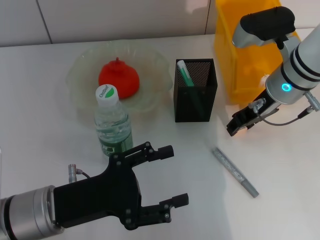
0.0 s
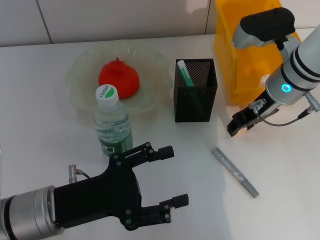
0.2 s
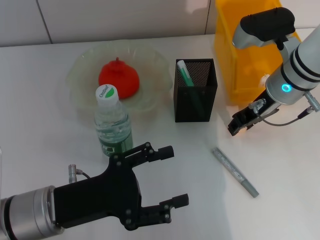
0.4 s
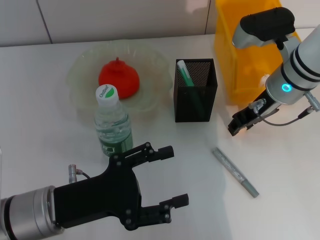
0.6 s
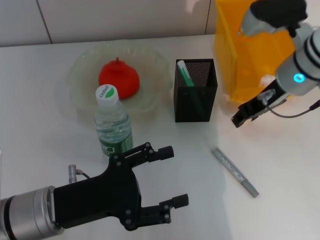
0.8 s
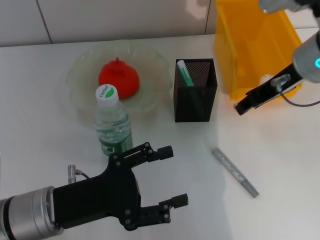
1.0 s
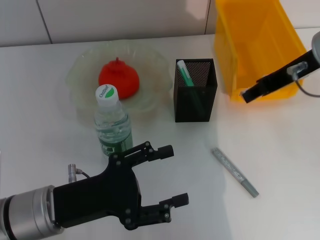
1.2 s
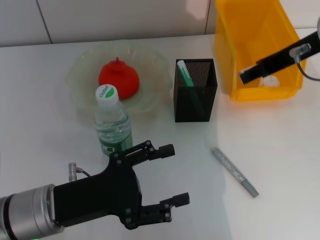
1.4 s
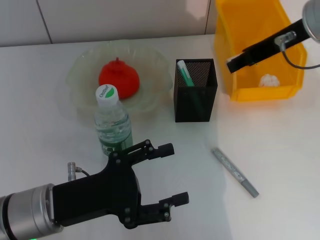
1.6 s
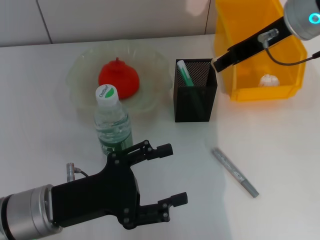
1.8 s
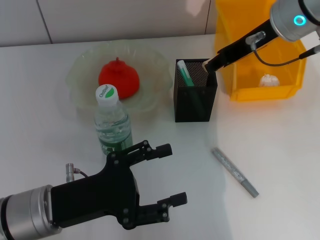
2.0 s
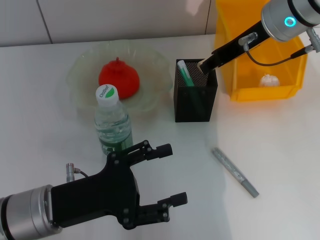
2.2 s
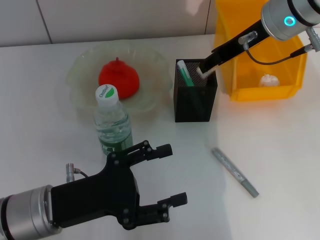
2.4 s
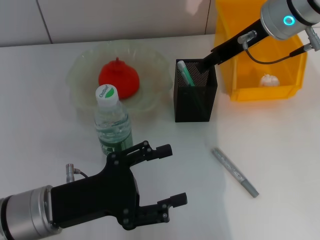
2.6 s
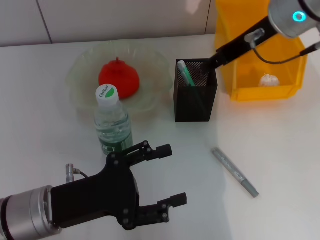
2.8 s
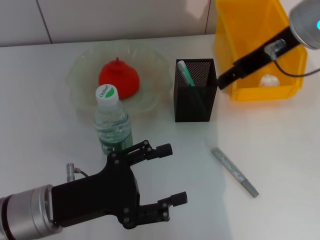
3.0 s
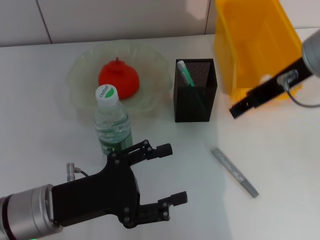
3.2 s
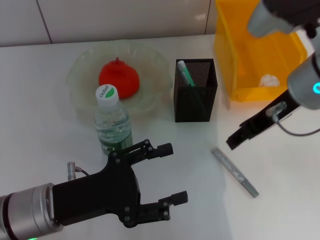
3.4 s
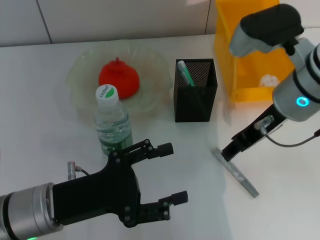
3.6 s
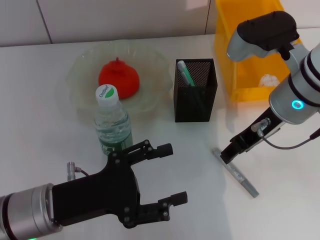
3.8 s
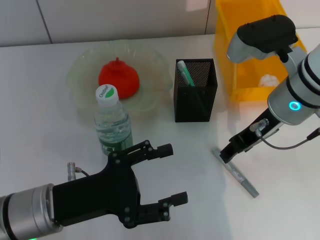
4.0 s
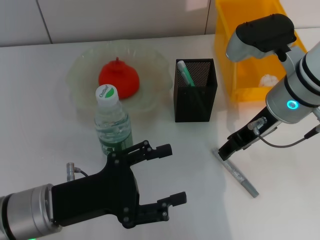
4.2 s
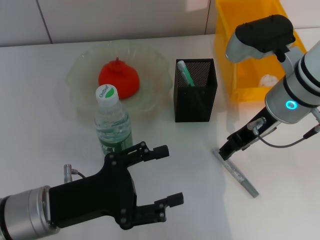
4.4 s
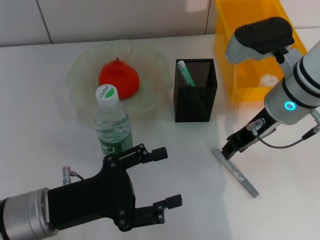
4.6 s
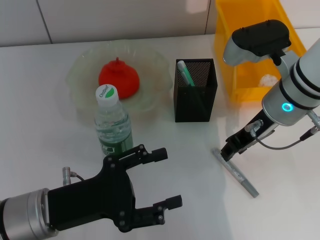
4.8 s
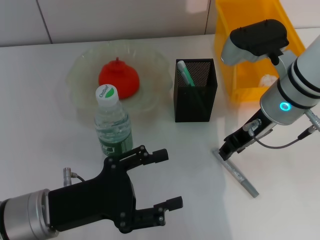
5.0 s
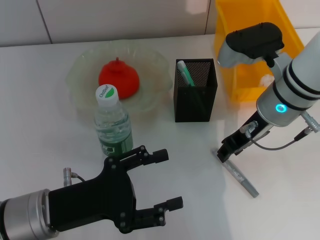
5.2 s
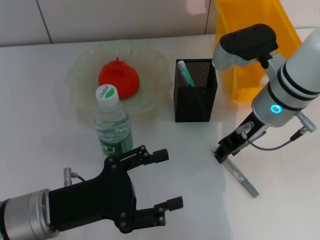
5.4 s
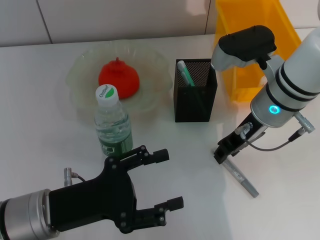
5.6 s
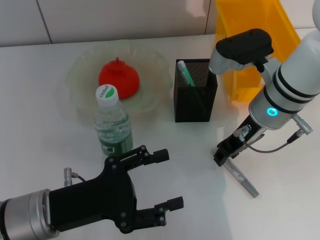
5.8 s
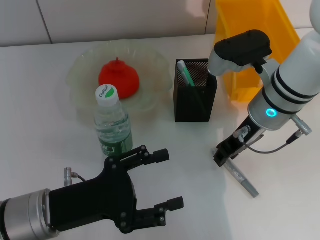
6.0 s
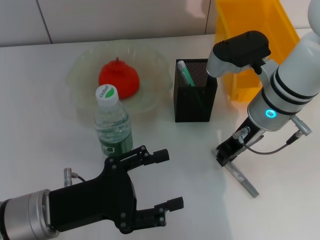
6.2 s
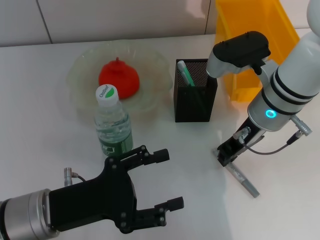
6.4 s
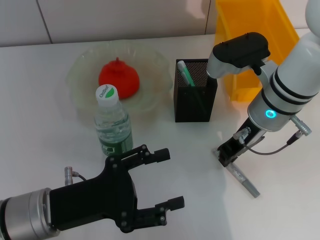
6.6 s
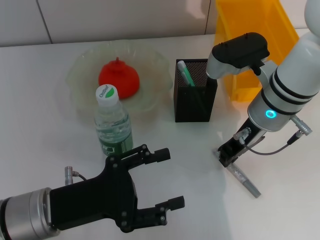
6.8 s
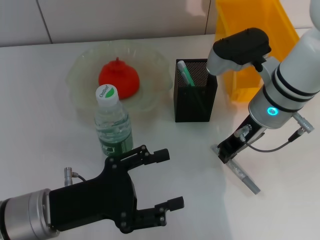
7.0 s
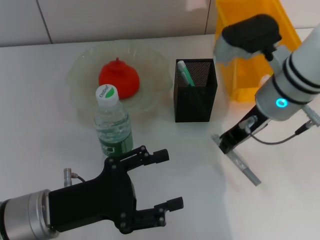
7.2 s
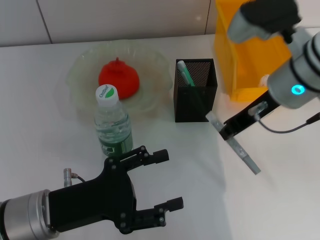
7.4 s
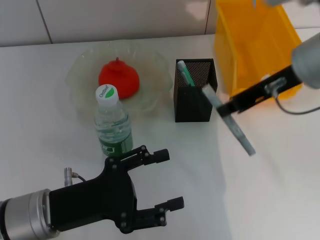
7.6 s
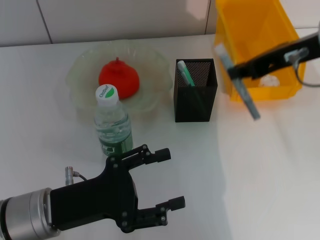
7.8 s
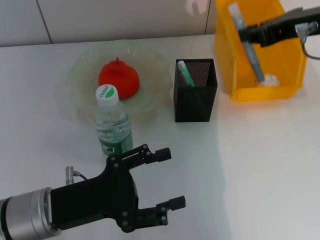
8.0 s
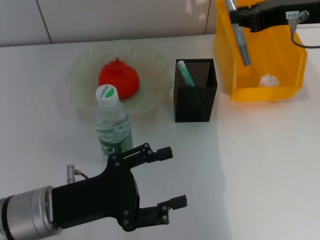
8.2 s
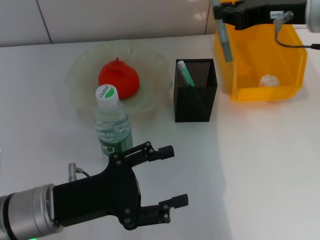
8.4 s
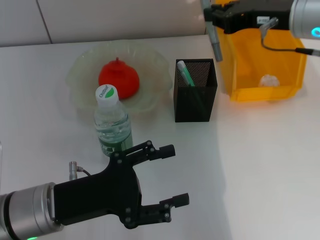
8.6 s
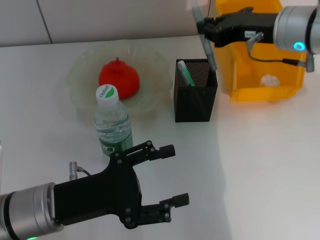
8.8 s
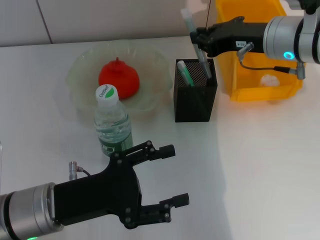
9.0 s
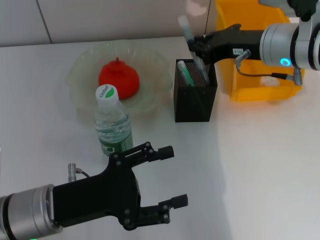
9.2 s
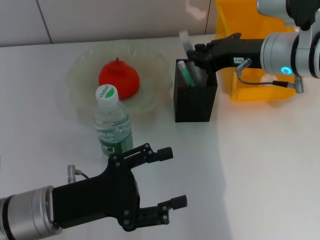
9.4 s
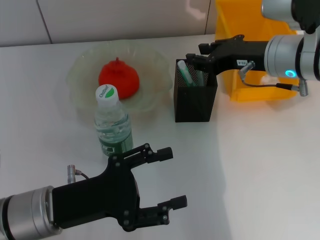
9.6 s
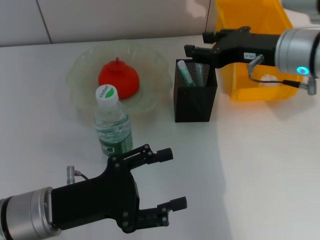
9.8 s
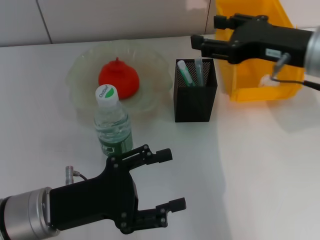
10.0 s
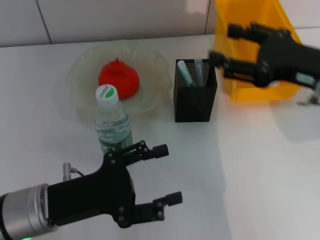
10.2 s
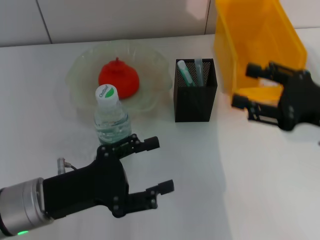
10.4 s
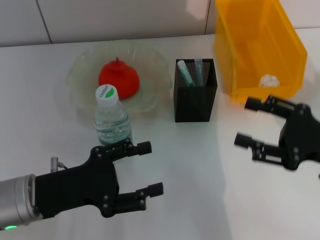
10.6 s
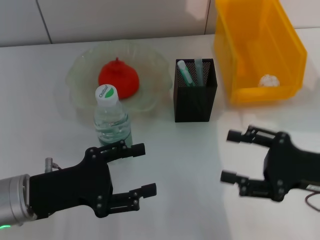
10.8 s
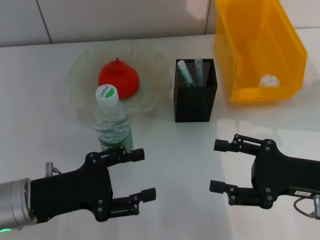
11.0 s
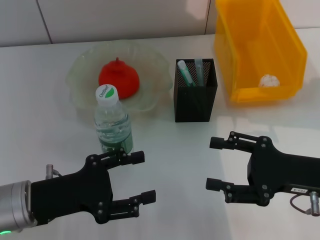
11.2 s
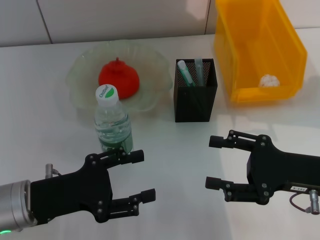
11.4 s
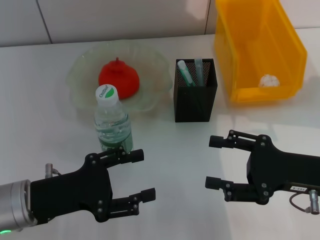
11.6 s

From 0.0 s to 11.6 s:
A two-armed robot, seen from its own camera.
Step, from 0.6 s to 2.6 s: Put the eraser into the pen holder with the right hand.
Step, from 2.8 s to 6.6 s: Grab the gray glue with the right hand.
Step, from 6.8 s to 10.0 s: Place the gray glue into the pen holder with the right hand.
From 0.0 s to 1.4 s: The right gripper goes about 10 cm upward.
From 2.8 s to 4.4 s: The right gripper heads downward, covering approximately 10 cm.
From 4.4 s to 5.8 s: The grippers stay close to where they were, moving slightly.
From 5.8 s to 7.2 s: The right gripper closes its fingers.
From 7.2 s to 8.8 s: The right gripper travels upward and back again, some 10 cm each way.
From 8.8 s to 10.2 s: The right gripper moves backward, approximately 10 cm, and opens its fingers.
From 10.2 s to 11.6 s: The right gripper moves downward and backward, approximately 10 cm.

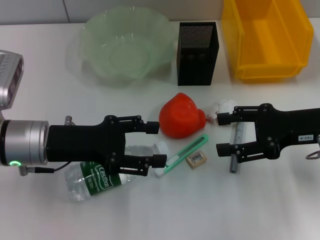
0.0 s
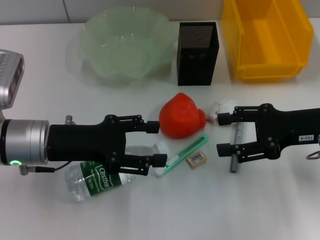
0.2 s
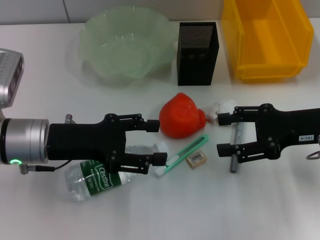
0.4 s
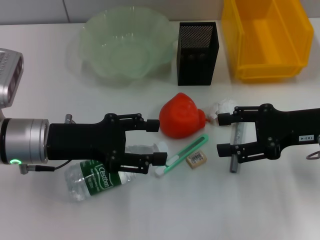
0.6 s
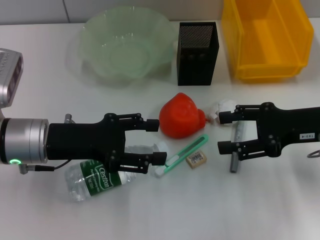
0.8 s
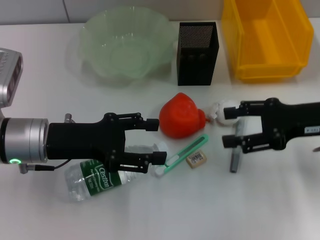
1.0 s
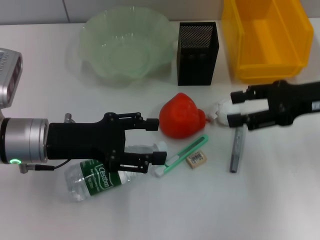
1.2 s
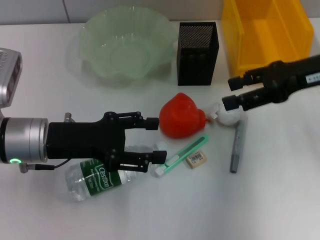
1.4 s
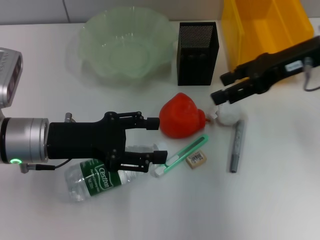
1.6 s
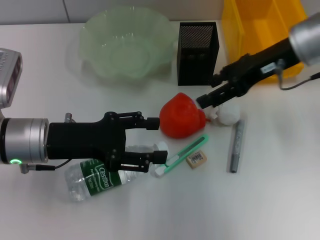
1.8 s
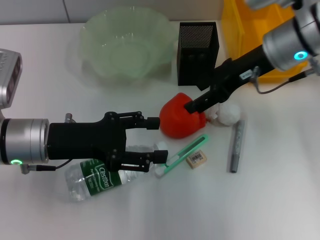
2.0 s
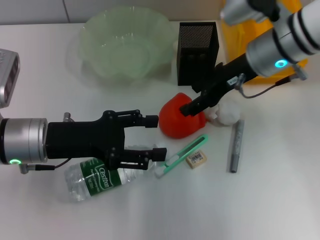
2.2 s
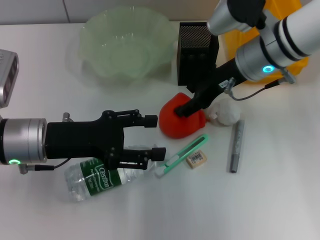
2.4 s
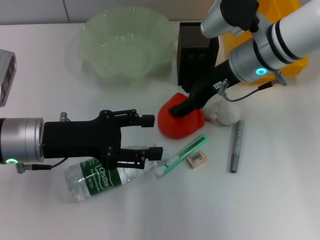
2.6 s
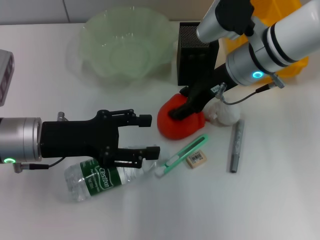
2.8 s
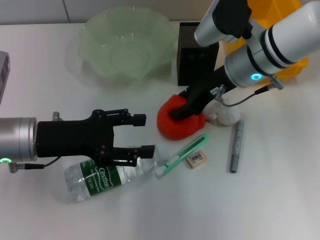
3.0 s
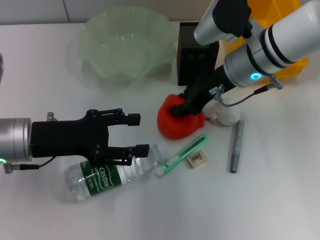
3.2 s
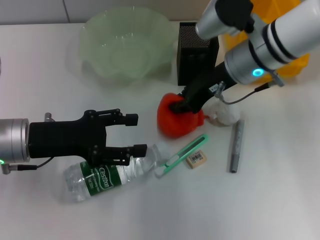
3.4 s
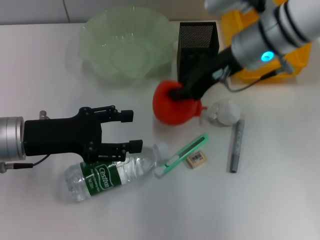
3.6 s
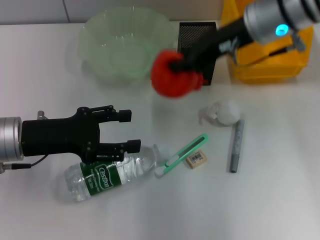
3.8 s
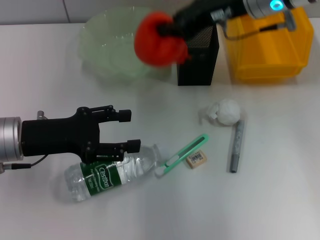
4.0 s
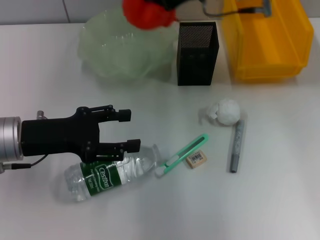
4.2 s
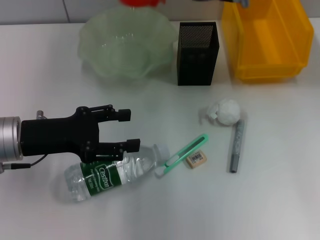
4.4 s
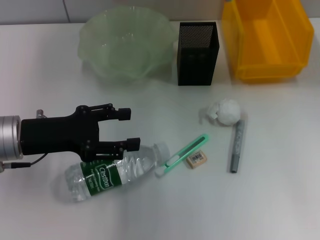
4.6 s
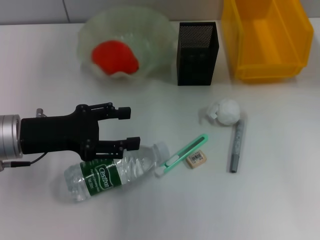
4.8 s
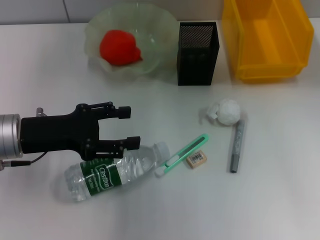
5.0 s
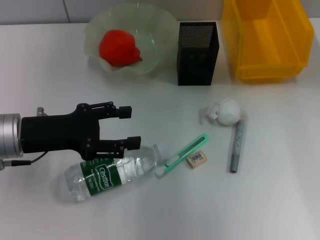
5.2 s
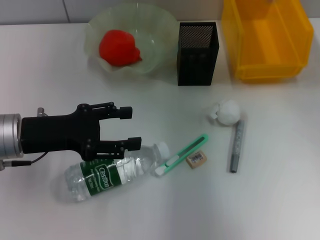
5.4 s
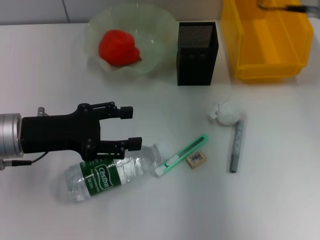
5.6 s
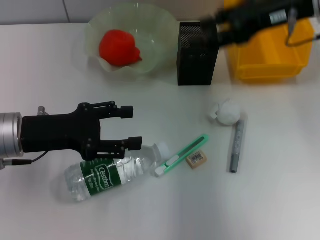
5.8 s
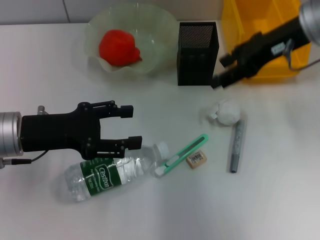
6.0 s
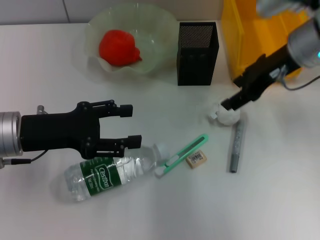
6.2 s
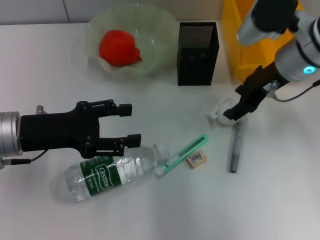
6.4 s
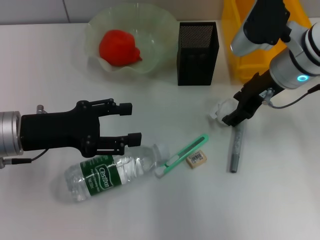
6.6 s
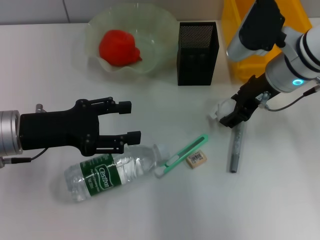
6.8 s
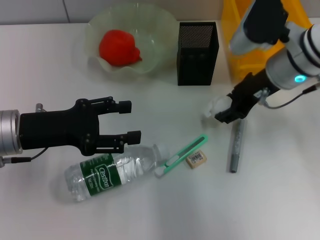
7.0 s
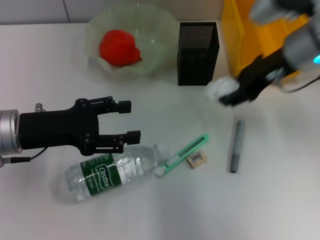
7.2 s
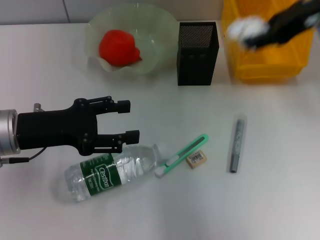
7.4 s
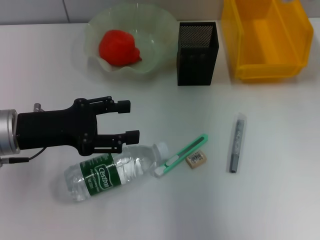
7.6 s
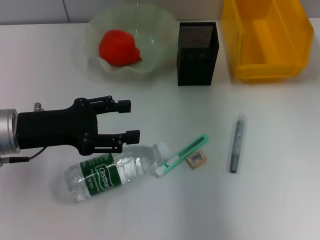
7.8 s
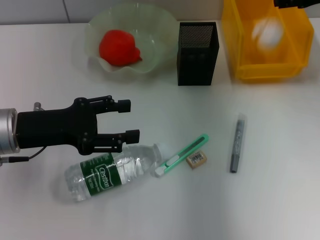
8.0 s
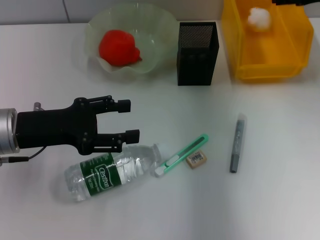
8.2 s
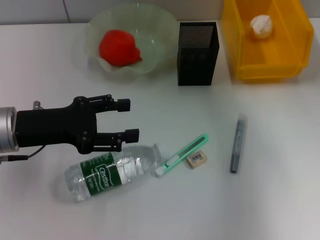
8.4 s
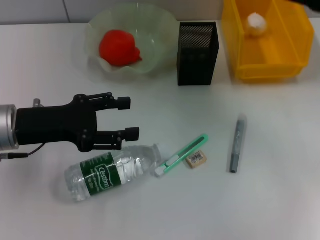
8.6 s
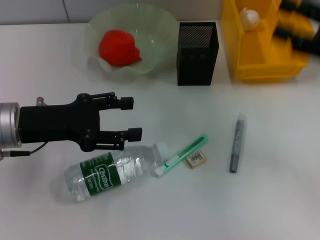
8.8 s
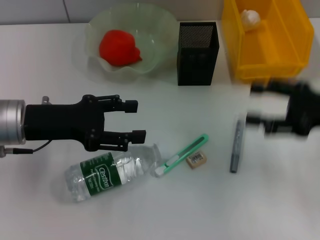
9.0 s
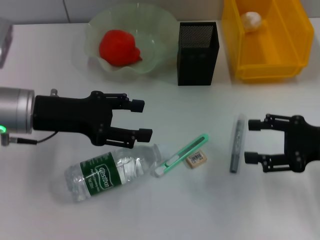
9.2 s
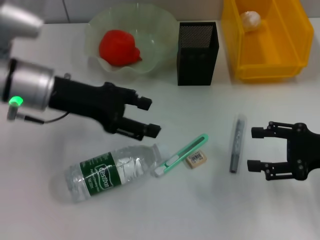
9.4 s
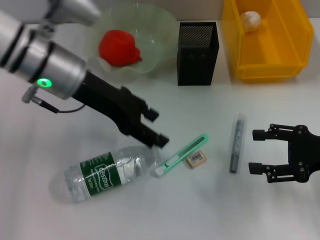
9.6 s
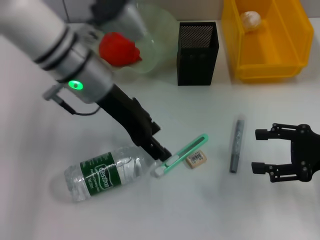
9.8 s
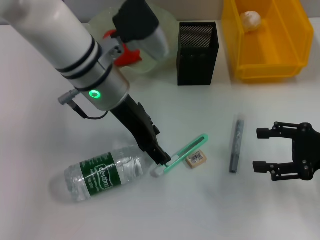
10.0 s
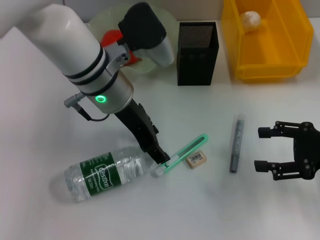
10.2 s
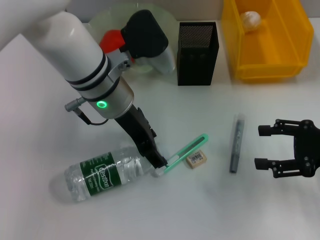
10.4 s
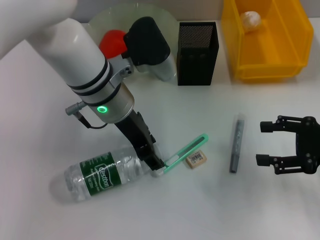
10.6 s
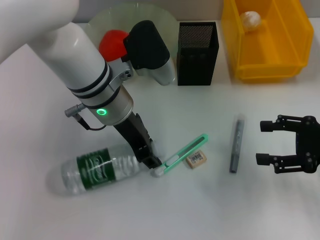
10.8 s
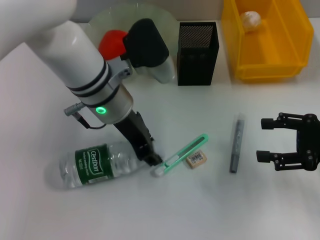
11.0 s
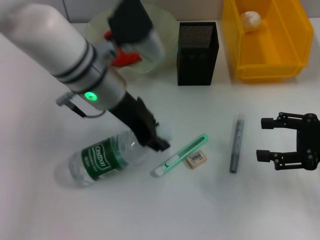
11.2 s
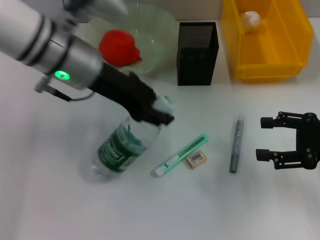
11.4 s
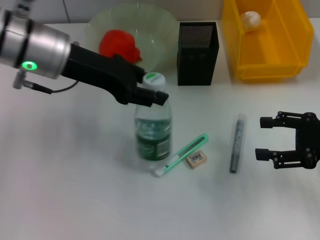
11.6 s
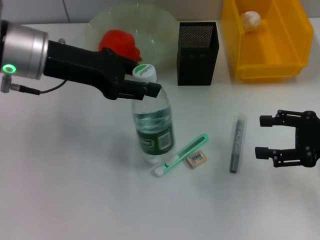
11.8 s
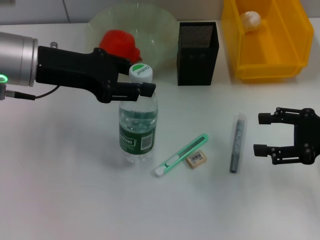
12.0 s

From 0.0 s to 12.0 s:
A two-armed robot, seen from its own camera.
Step, from 0.0 s to 3.2 s: Grab the orange with the right hand.
Step, from 3.4 s to 5.0 s: Place the orange into the fruit bowl with the right hand.
Step, from 5.4 s to 6.6 s: Grab the paper ball with the right hand.
Step, from 6.8 s to 8.4 s: Place the paper ball into the trash can with the right hand.
Step, from 8.6 s to 10.8 s: Grab the water bottle with the left hand.
From 0.0 s to 1.6 s: The right gripper moves upward and forward, some 10 cm.
From 1.6 s to 3.0 s: The right gripper heads to the left and downward, covering about 10 cm.
From 3.0 s to 4.4 s: The right gripper moves upward and forward, roughly 10 cm, and closes up.
From 4.4 s to 6.0 s: The right gripper shifts about 10 cm to the right and backward, and opens.
From 6.0 s to 7.6 s: The right gripper shifts about 10 cm to the right and upward.
From 7.6 s to 9.0 s: The right gripper shifts some 20 cm downward and backward.
From 9.0 s to 10.4 s: The left gripper moves to the right, some 15 cm.
From 10.4 s to 12.0 s: The left gripper shifts approximately 10 cm to the left, and closes.
